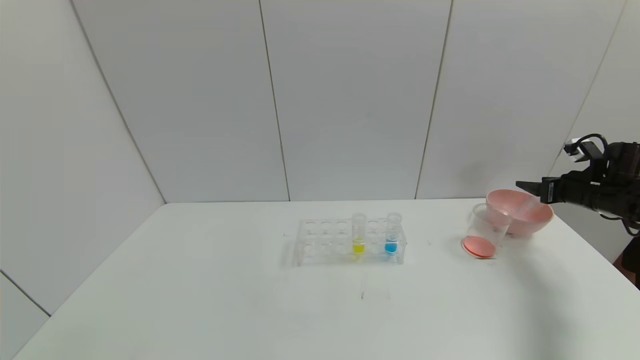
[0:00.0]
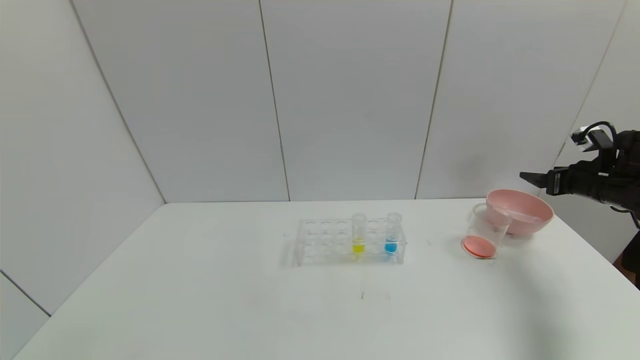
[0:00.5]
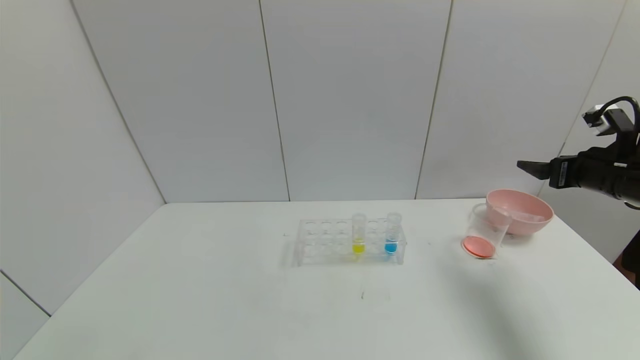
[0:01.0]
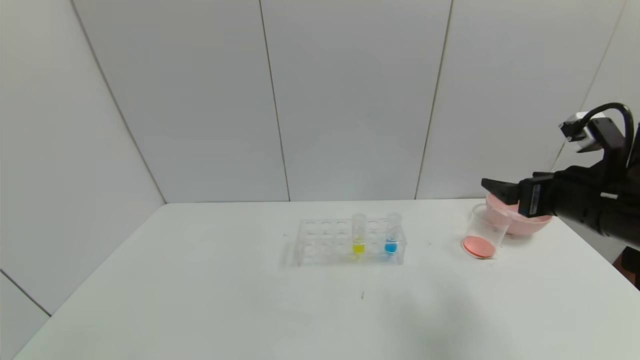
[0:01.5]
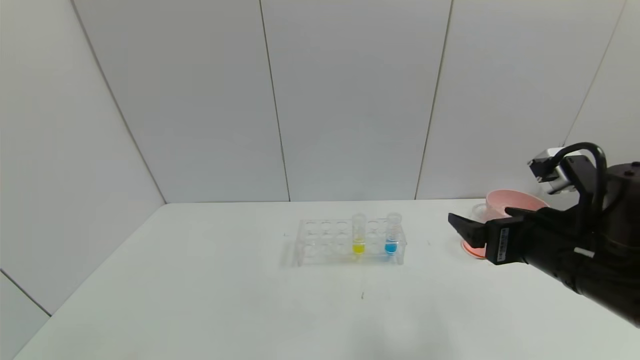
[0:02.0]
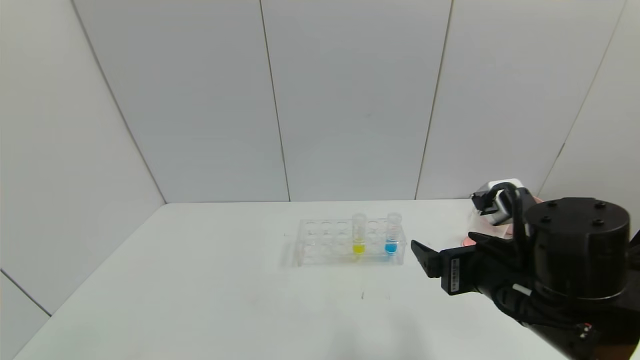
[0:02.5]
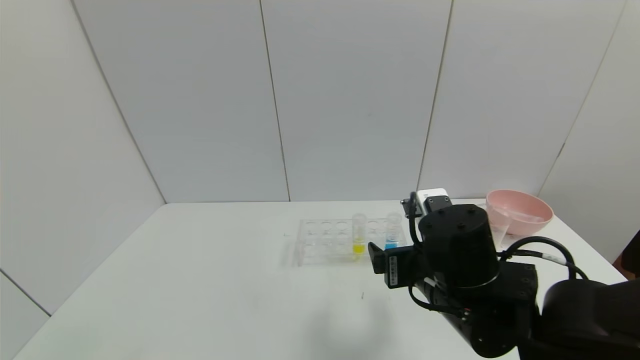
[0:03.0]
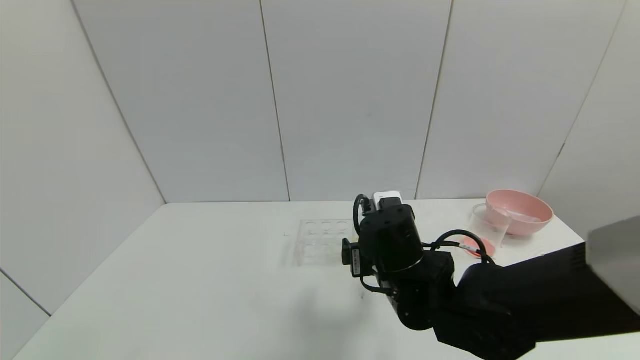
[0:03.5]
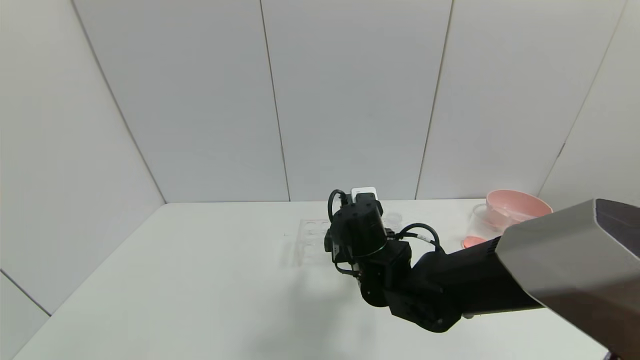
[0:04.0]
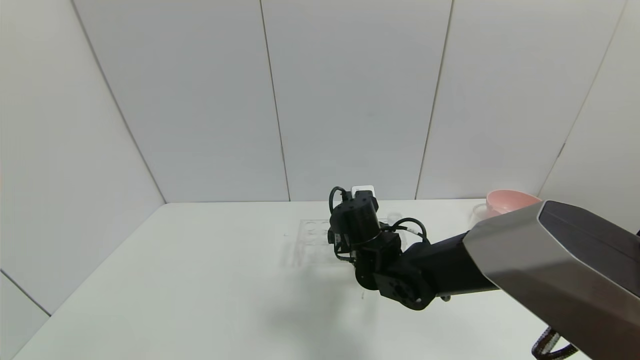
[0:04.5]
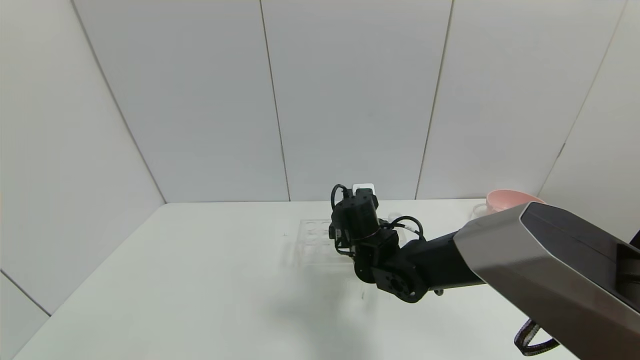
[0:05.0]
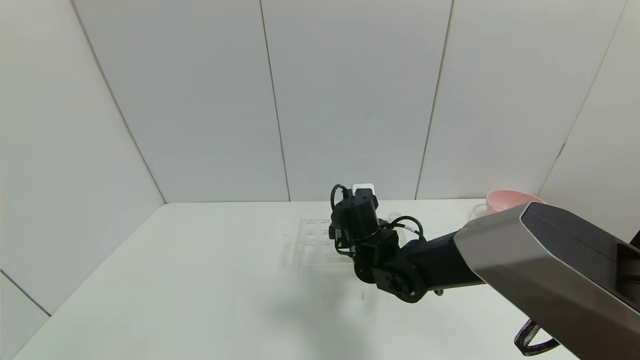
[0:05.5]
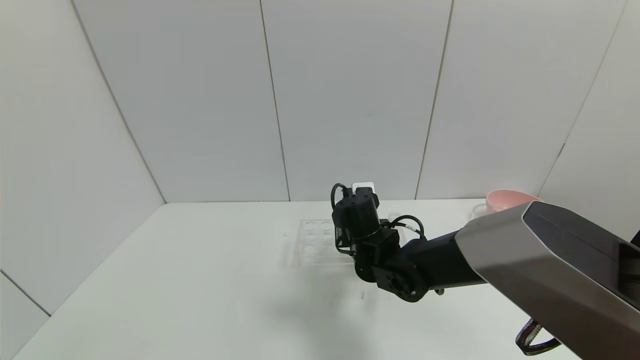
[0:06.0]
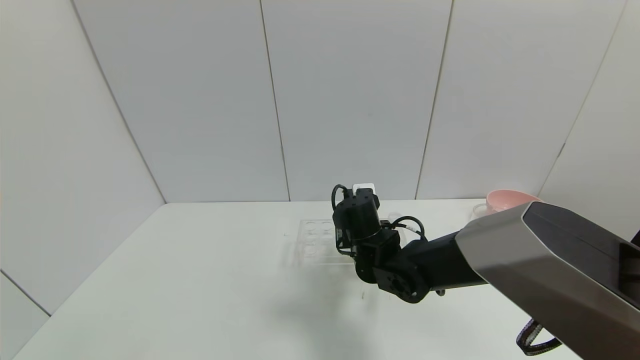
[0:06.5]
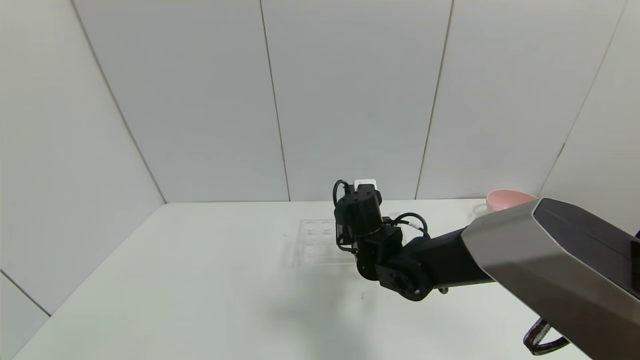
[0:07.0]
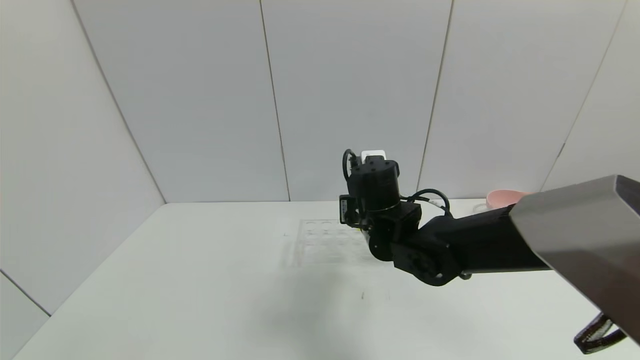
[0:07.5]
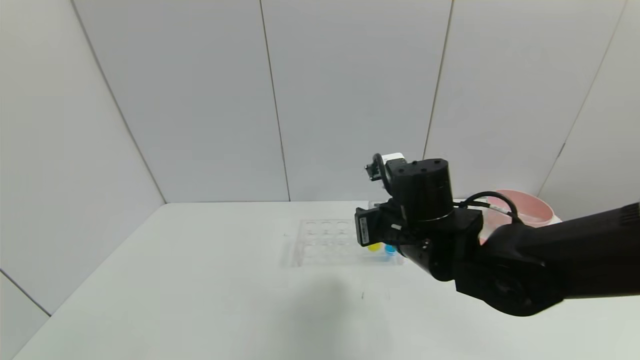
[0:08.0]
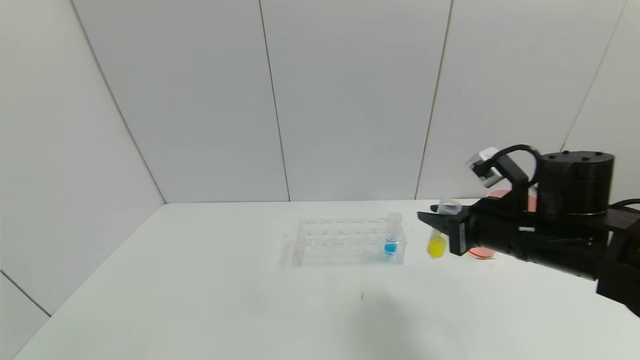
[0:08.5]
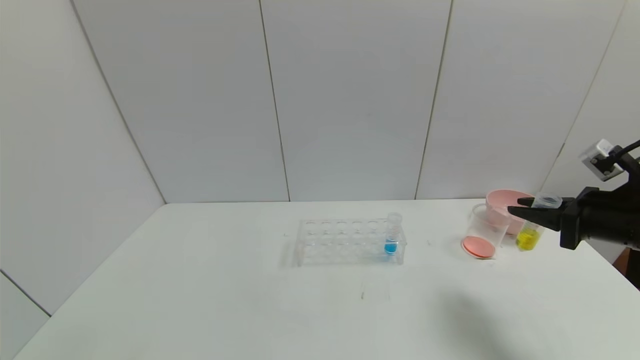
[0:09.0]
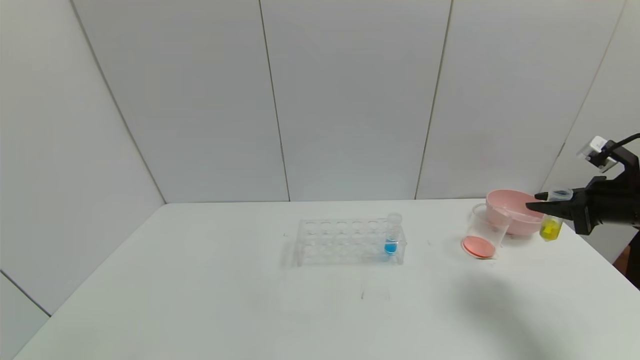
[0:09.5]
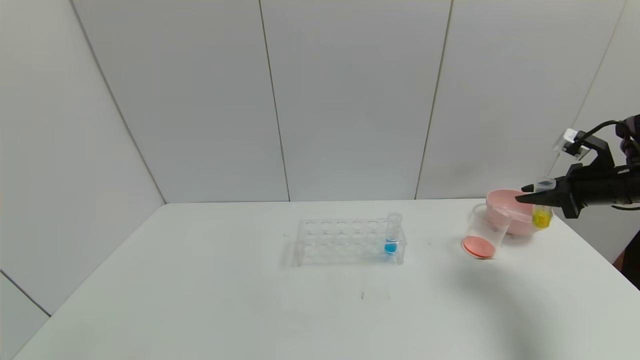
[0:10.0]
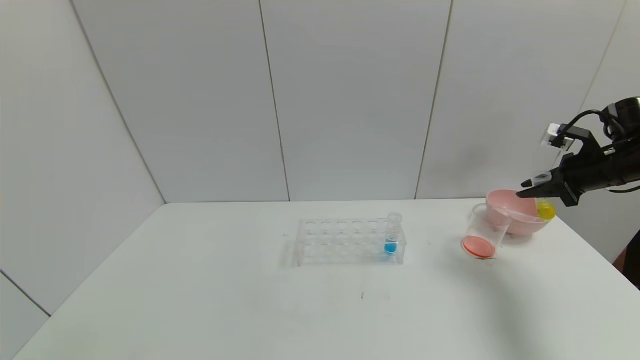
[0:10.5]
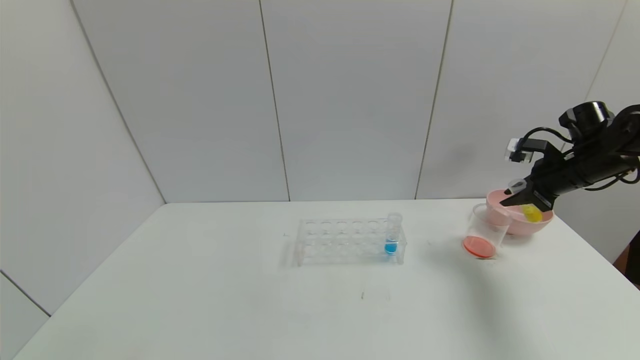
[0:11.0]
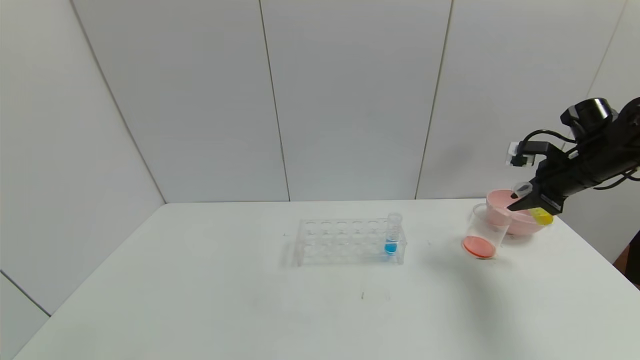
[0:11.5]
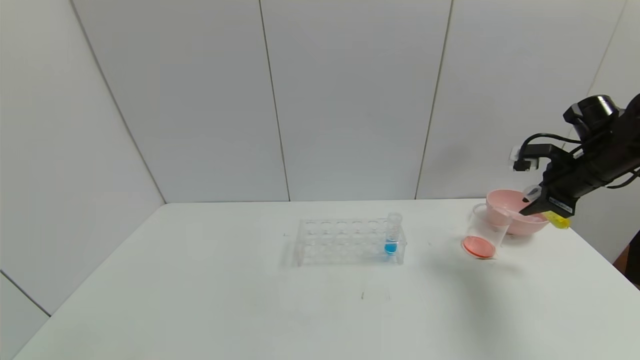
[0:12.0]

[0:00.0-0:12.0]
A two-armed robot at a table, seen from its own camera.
Task of the whole recording: pick up the test tube with yellow pigment and the test tube with red pigment by grippers and pour them into the beaker.
Step, 0:01.0 to 0:08.5: Pick up the test tube containing the yellow reagent with right gripper.
0:00.0 to 0:02.0: The right gripper moves to the left and backward, roughly 30 cm.
0:02.0 to 0:04.0: The right gripper moves to the left, forward and downward, about 25 cm.
0:04.0 to 0:06.0: The right gripper travels forward by approximately 5 cm, and closes up.
0:06.0 to 0:08.0: The right gripper moves upward, backward and to the right, some 10 cm, and closes its fingers.
0:08.0 to 0:10.0: The right gripper moves to the right, roughly 35 cm.
0:10.0 to 0:12.0: The right gripper changes place by approximately 5 cm.

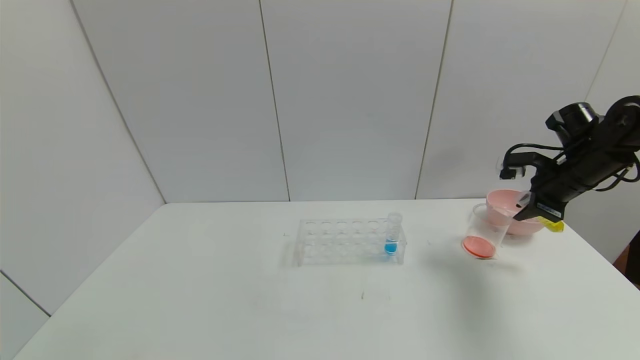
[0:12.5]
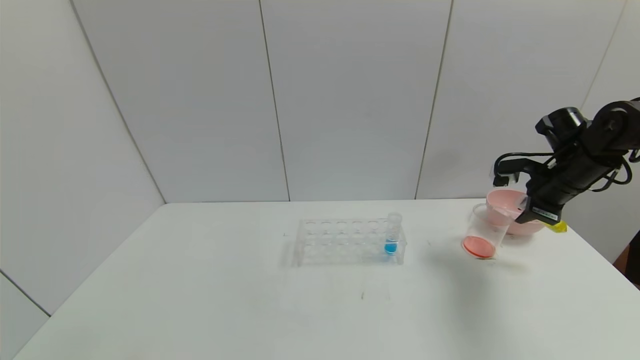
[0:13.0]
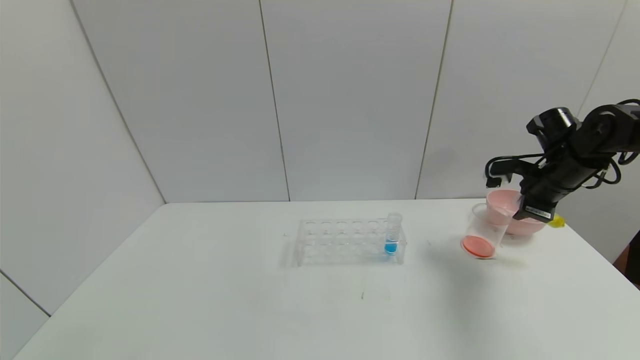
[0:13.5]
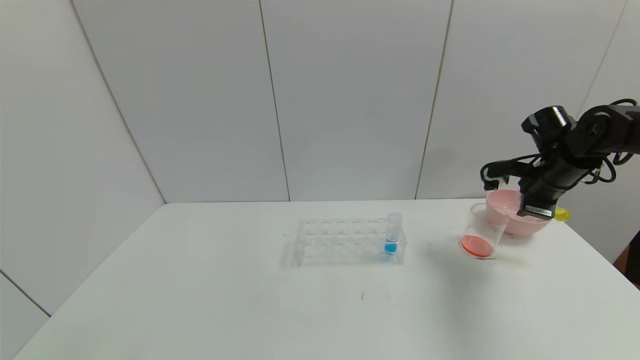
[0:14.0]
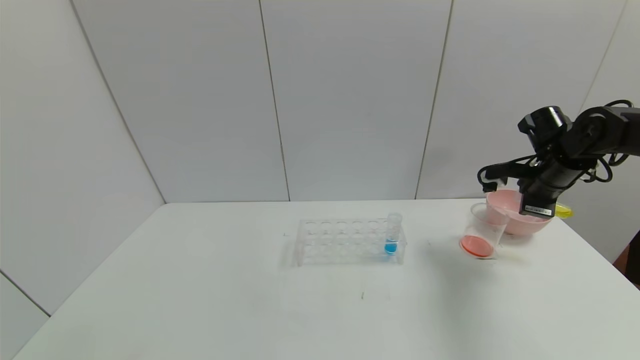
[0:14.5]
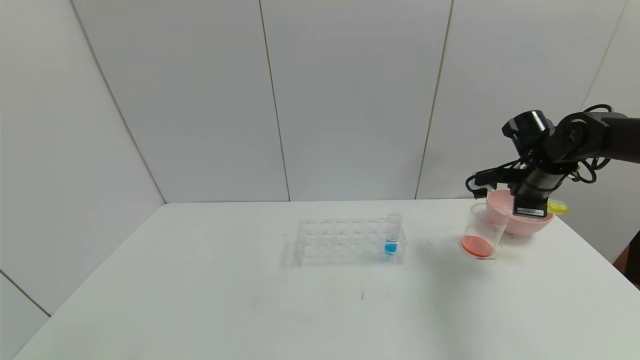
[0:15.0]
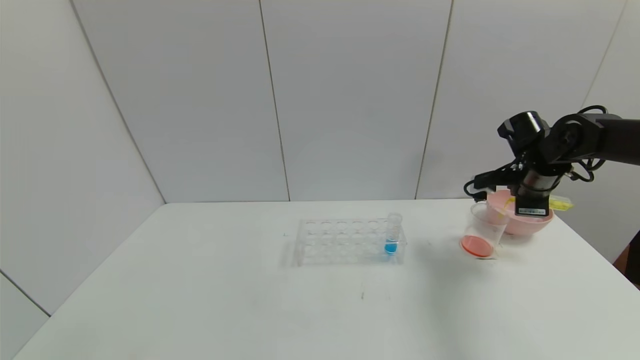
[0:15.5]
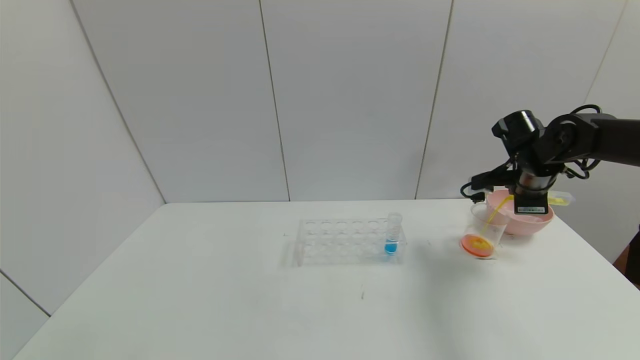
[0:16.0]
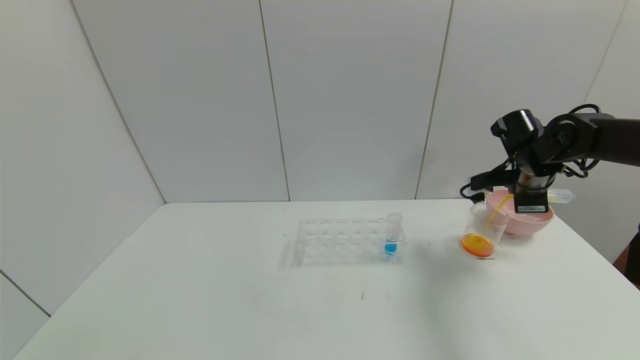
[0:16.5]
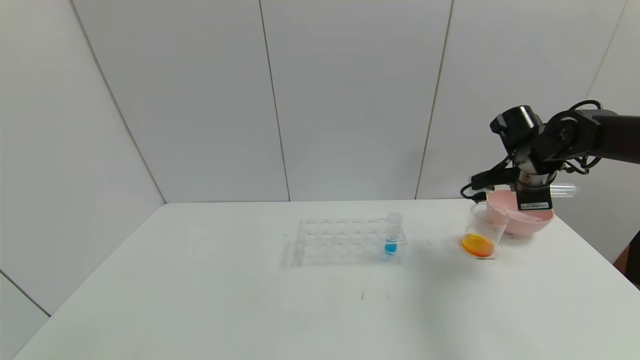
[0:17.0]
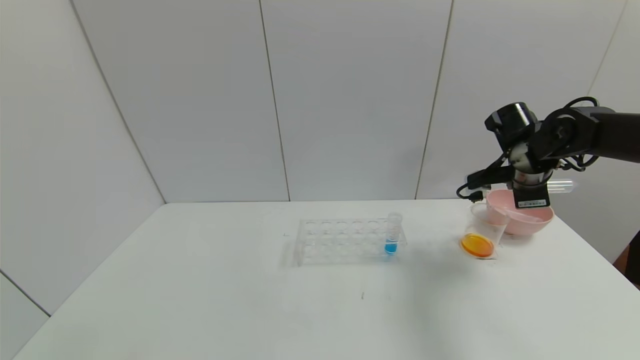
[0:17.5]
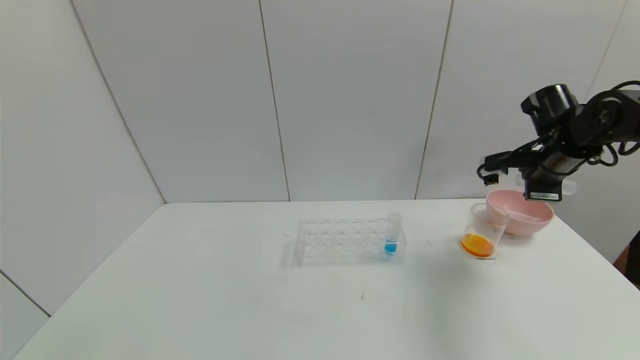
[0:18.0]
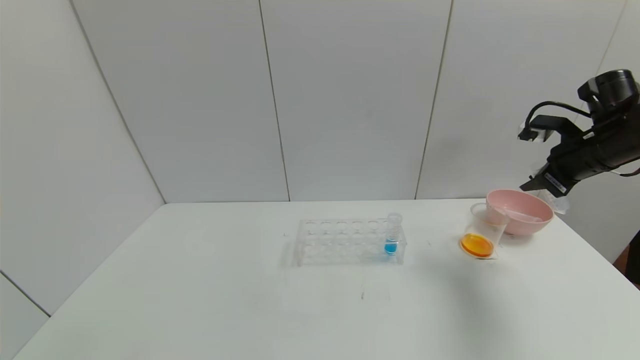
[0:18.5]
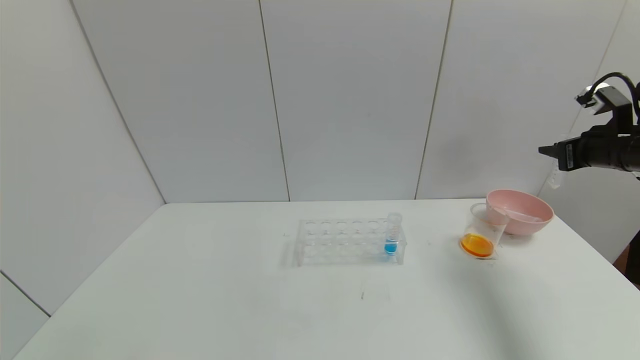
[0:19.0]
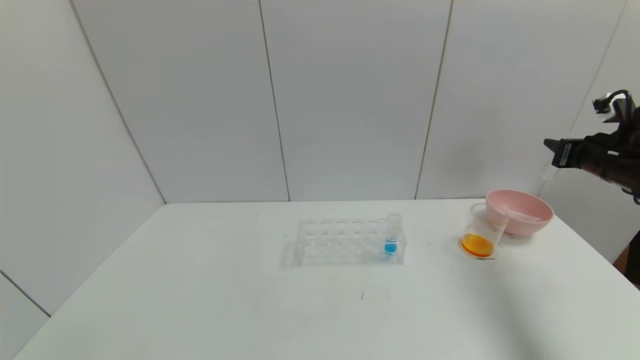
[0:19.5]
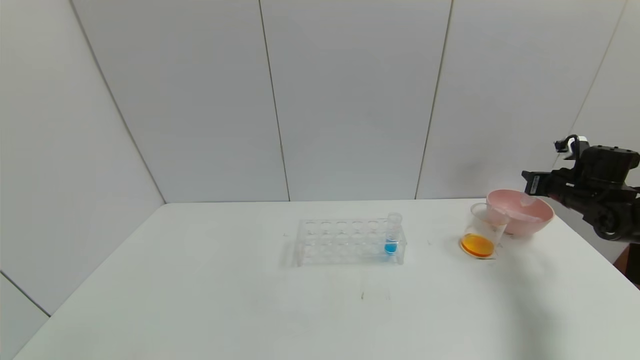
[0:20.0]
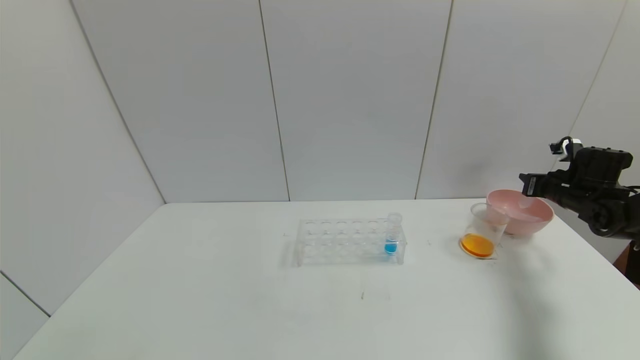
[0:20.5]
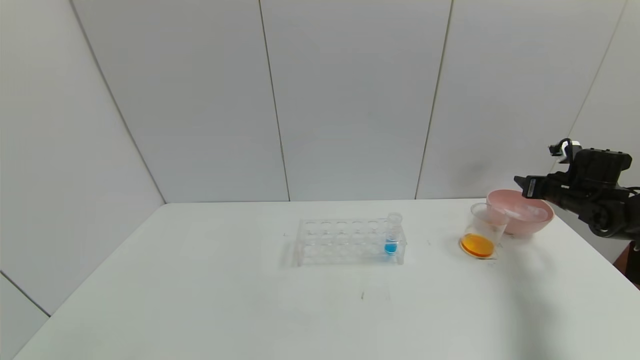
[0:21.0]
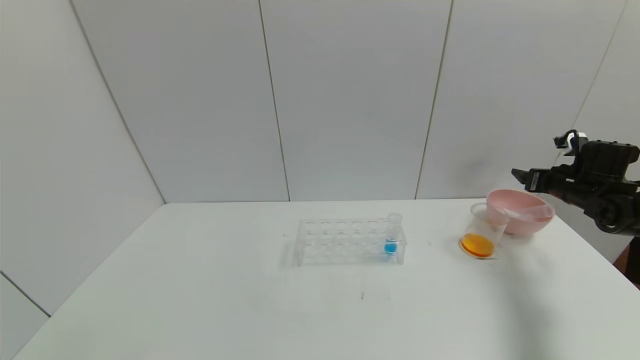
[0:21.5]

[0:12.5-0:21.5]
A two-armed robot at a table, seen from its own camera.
Task of the whole recording: pick up the test tube with yellow pigment and the test tube with red pigment by grippers and pour them into the beaker.
Step, 0:12.5 to 0:18.5: Pour the yellow reagent into the graduated cylinder with right gripper.
0:17.0 to 0:19.5: The right gripper shifts some 10 cm to the right.
0:19.5 to 0:21.5: The right gripper heads downward and forward, covering roughly 10 cm, and opens its fingers.
